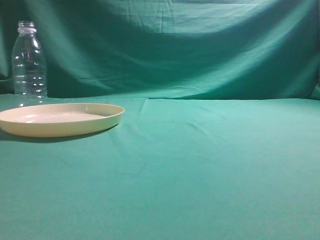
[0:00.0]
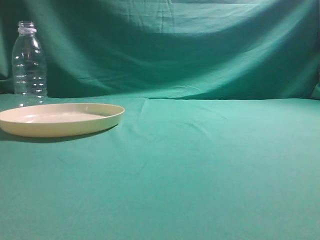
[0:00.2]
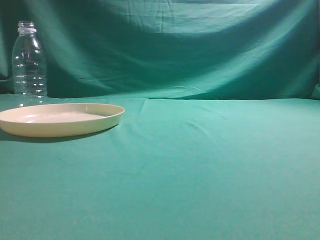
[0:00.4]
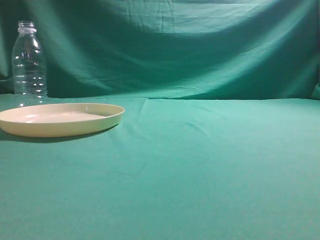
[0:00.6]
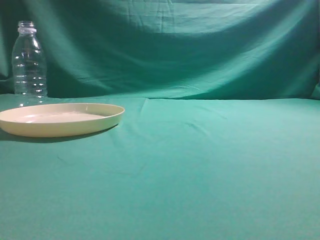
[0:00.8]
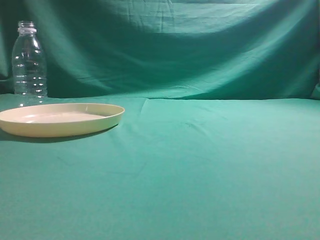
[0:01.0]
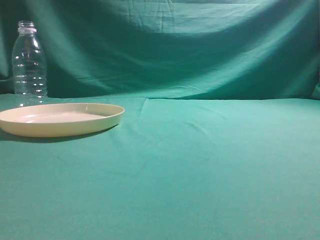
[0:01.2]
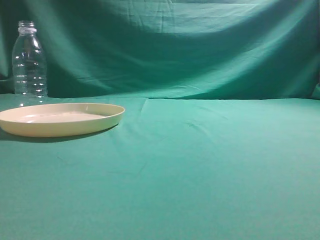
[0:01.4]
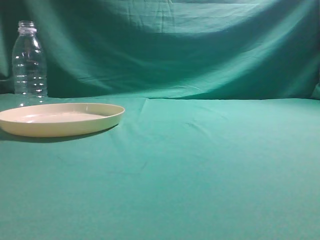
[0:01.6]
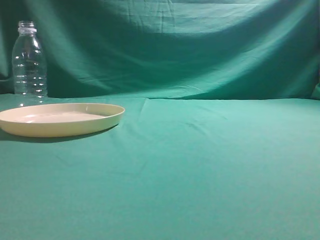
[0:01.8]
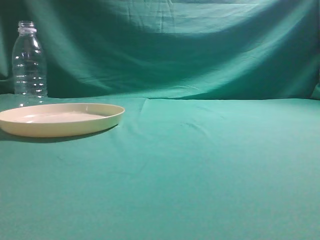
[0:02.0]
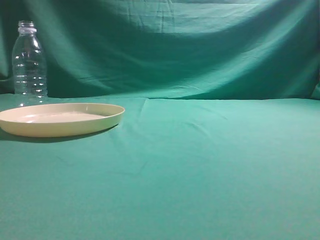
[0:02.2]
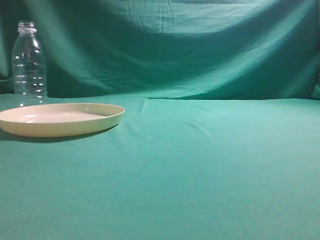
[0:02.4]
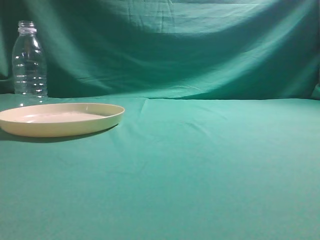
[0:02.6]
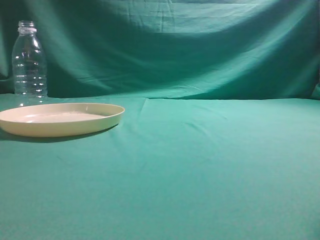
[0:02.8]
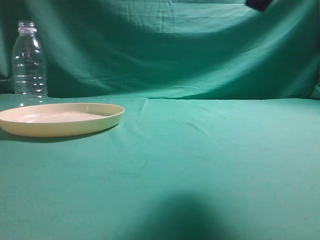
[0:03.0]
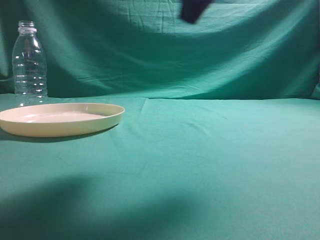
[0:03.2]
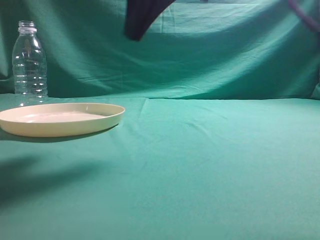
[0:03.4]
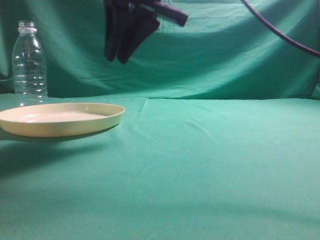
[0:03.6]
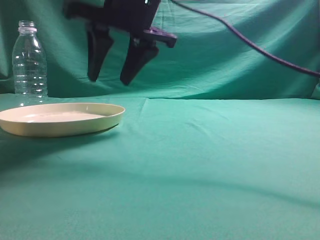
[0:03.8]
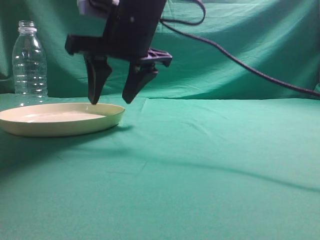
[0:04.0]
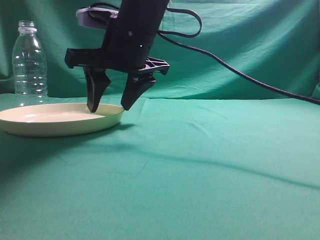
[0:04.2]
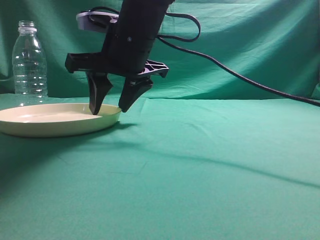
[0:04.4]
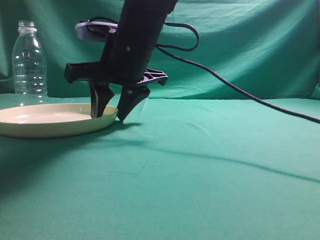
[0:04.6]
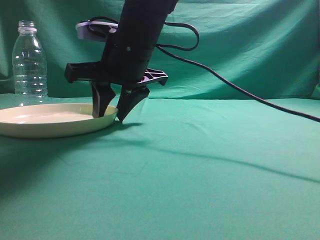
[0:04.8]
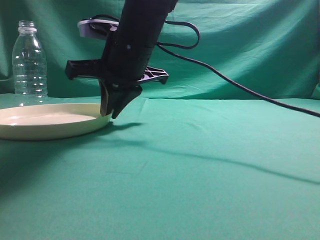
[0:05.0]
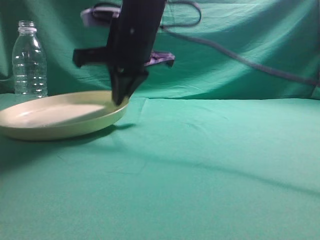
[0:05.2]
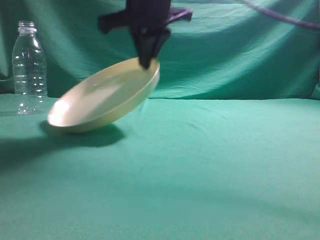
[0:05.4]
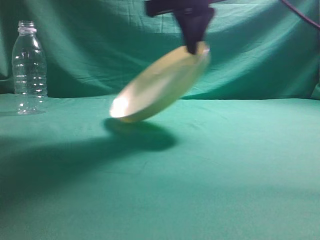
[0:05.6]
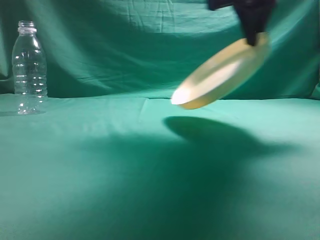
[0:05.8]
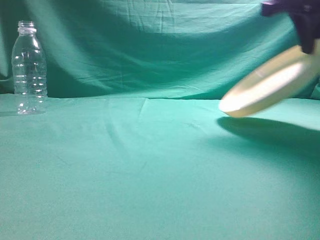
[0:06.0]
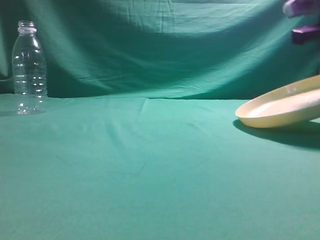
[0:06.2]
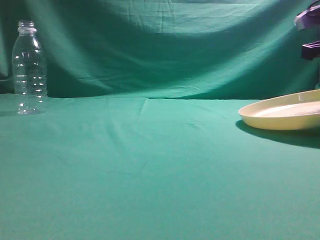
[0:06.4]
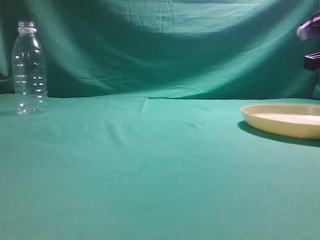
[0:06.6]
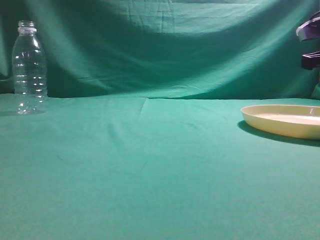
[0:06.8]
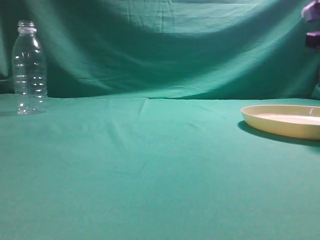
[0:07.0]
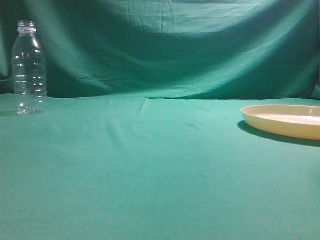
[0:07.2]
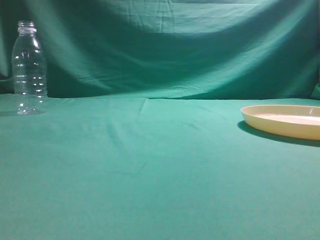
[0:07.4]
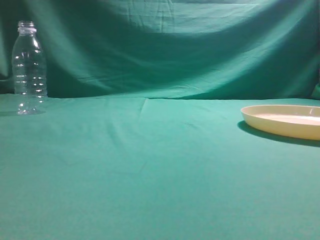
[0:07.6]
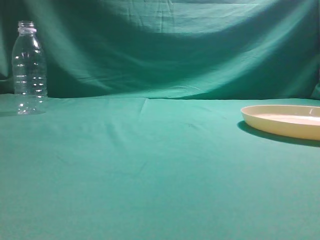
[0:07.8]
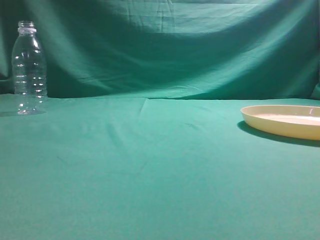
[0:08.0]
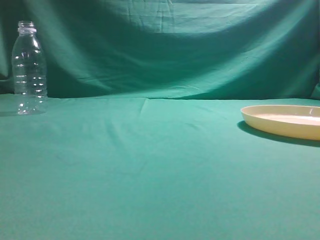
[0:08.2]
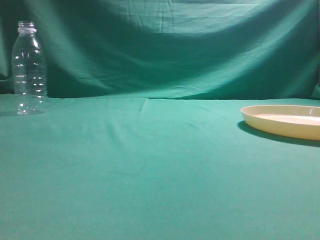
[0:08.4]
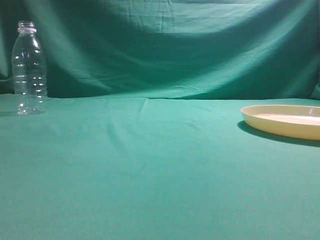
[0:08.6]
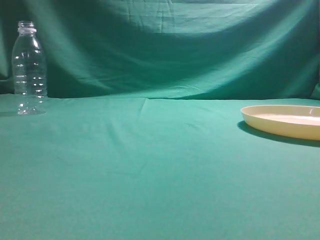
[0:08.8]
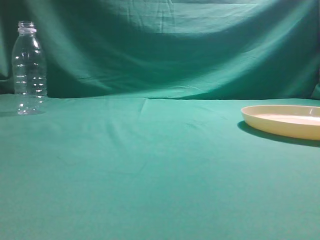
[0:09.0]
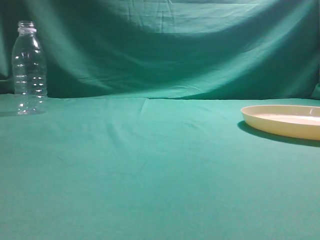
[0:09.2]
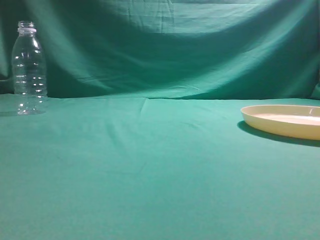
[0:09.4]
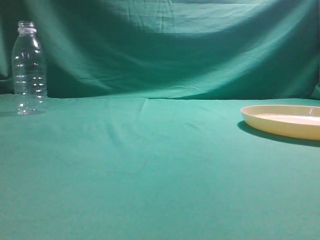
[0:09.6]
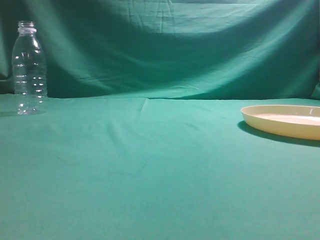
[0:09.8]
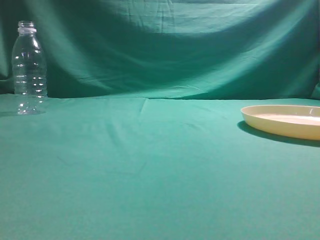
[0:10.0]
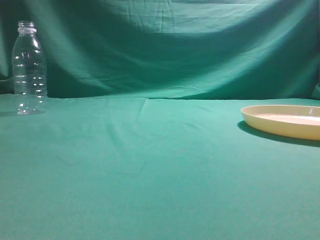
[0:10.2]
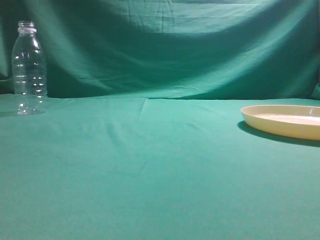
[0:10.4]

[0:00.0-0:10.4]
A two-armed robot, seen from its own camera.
Step, 0:00.0 to 0:05.6: Pick the container that can hold fruits.
Step, 0:05.8 to 0:07.0: Move the picked object to the right side of the table.
0:01.4 to 0:03.0: The right gripper moves forward, to the left and upward, about 20 cm.
0:03.0 to 0:04.4: The right gripper travels to the left, forward and downward by about 30 cm, and opens its fingers.
0:04.4 to 0:06.0: The right gripper shifts roughly 25 cm to the right and upward, and closes its fingers.
0:06.0 to 0:07.4: The right gripper heads to the right and backward, covering about 10 cm, travels downward and back again, some 10 cm each way, and opens, then closes once more.
